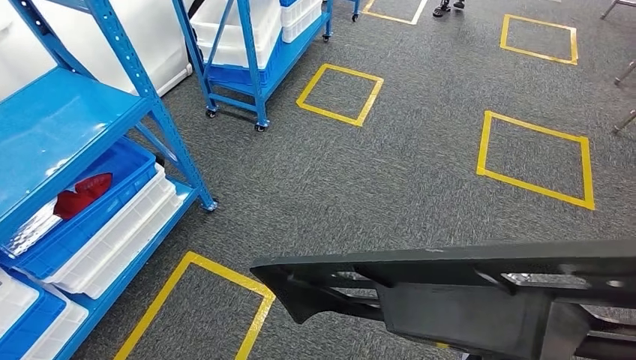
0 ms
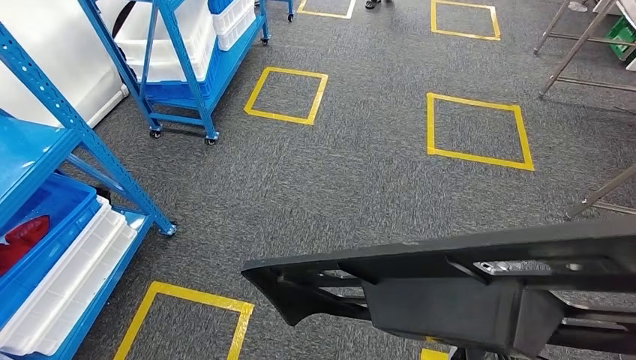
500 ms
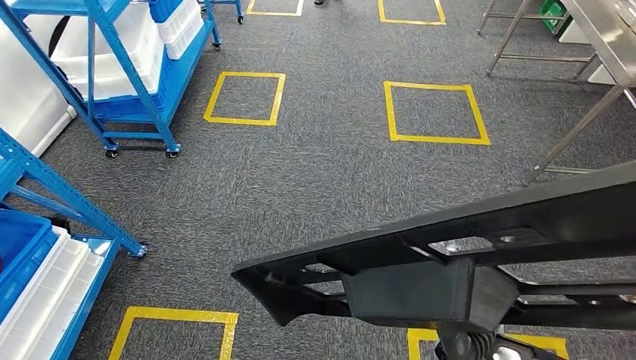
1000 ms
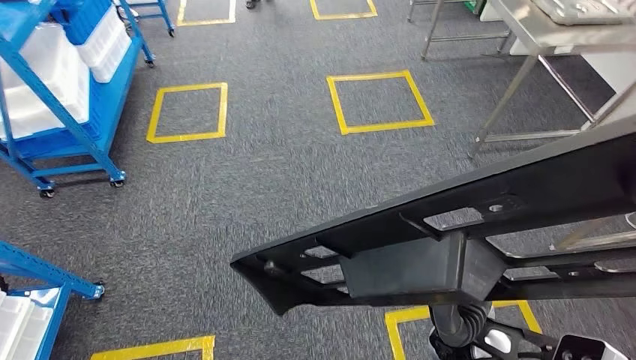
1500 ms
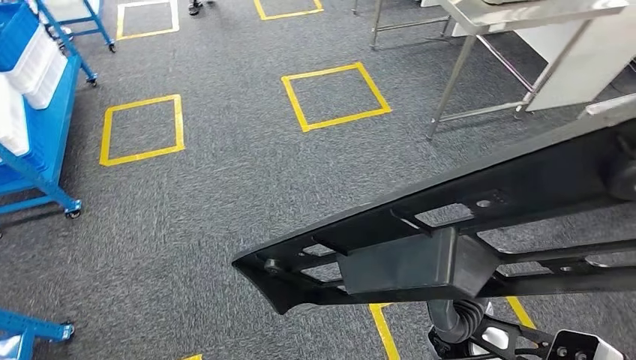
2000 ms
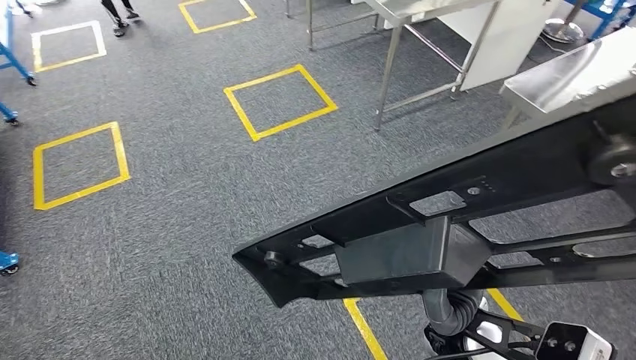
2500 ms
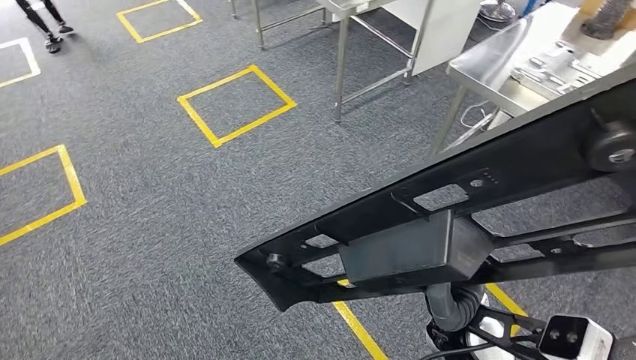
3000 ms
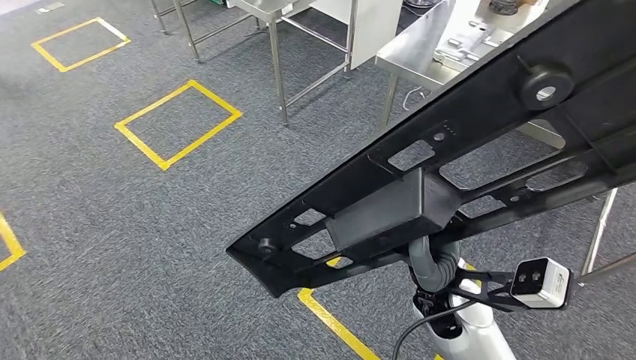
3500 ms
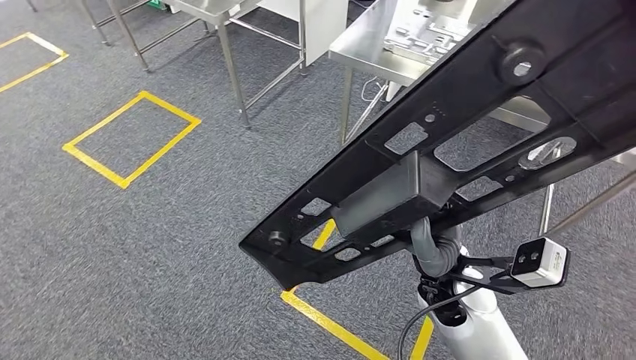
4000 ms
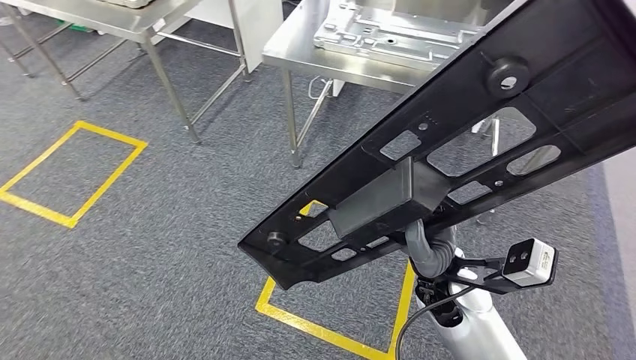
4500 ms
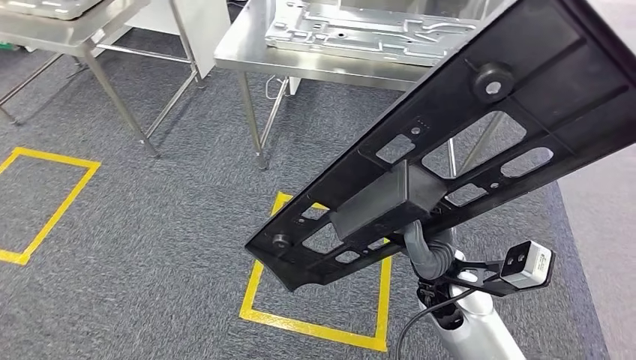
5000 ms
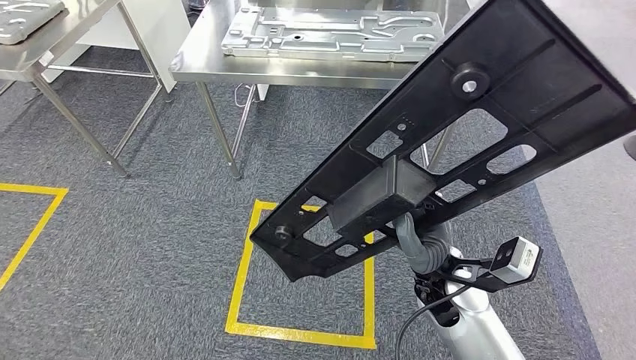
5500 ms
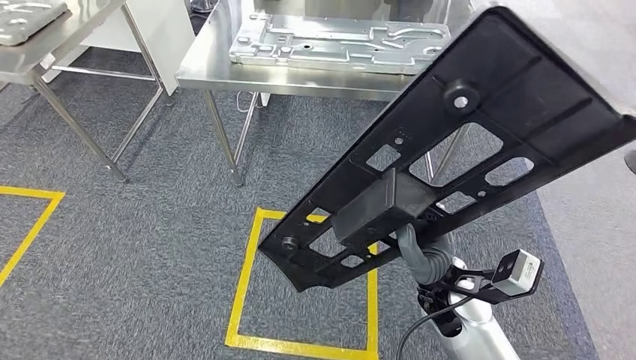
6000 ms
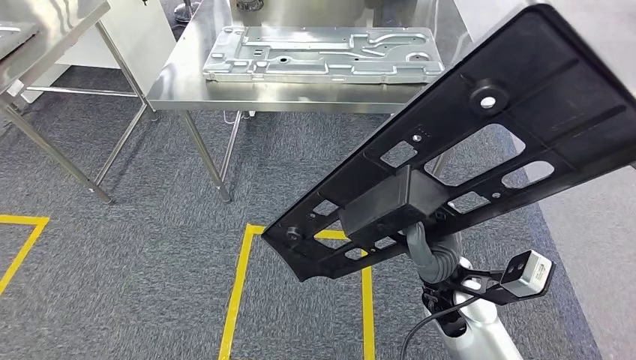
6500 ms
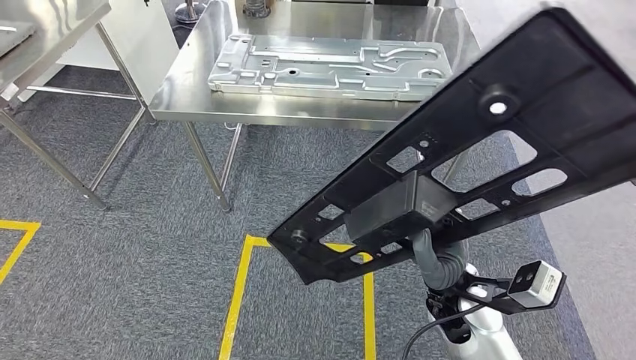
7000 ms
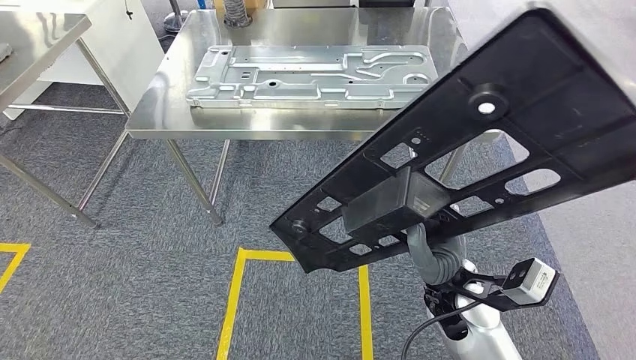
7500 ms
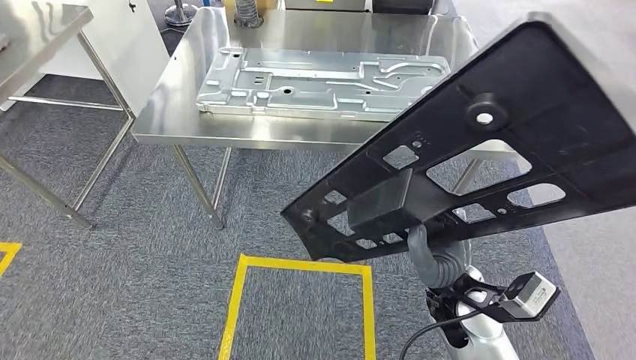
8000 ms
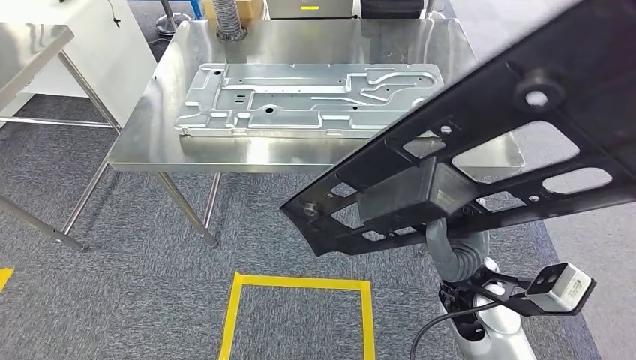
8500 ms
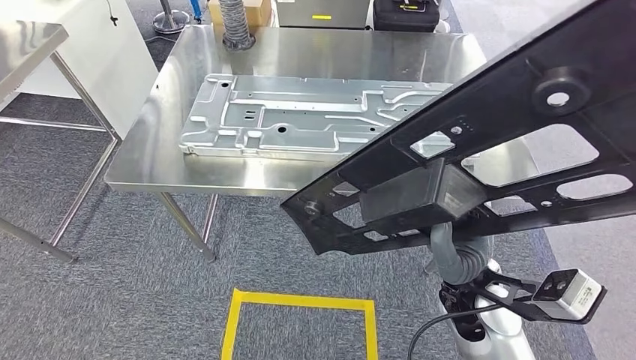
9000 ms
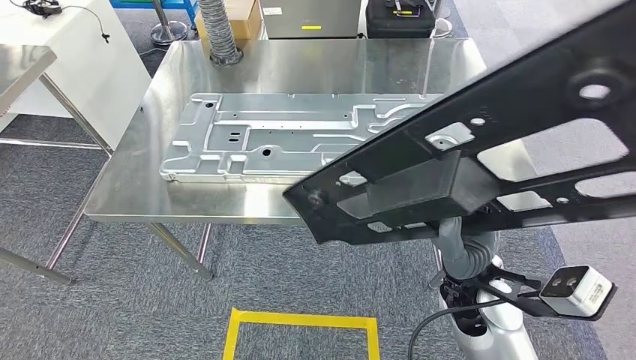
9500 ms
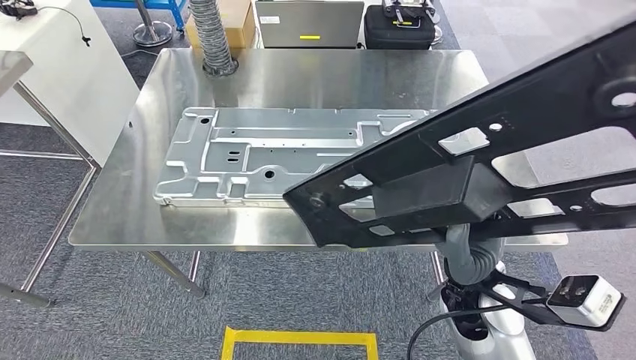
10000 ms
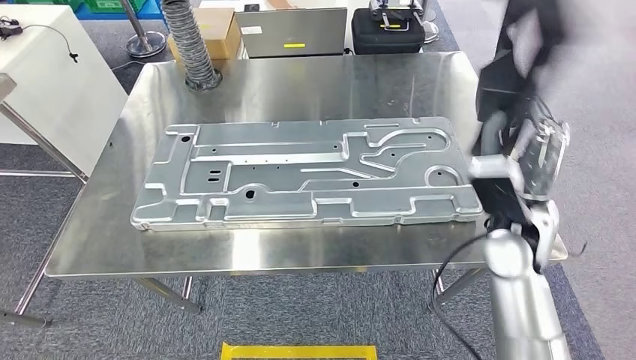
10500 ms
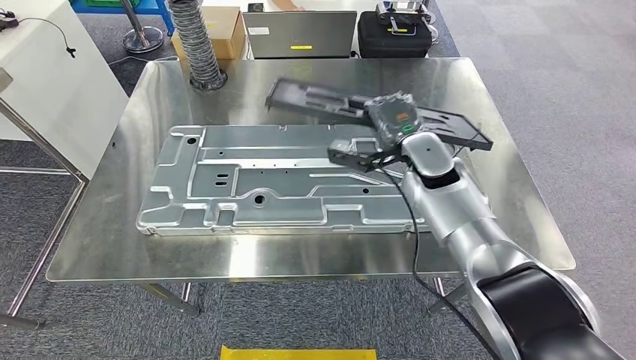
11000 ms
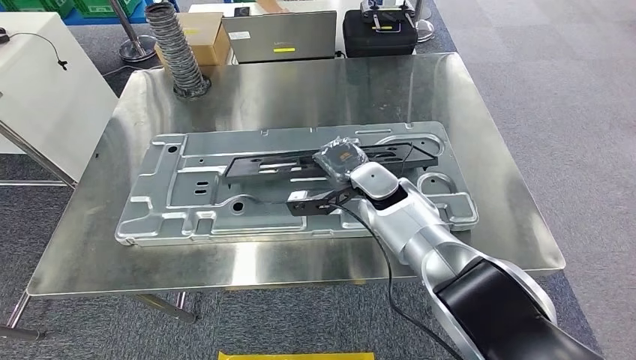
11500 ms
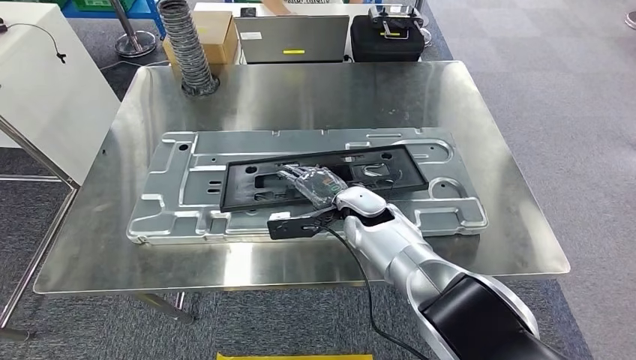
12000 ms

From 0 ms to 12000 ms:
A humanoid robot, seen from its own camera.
Step, from 0 ms to 10000 ms: Move the large material to the workbench.

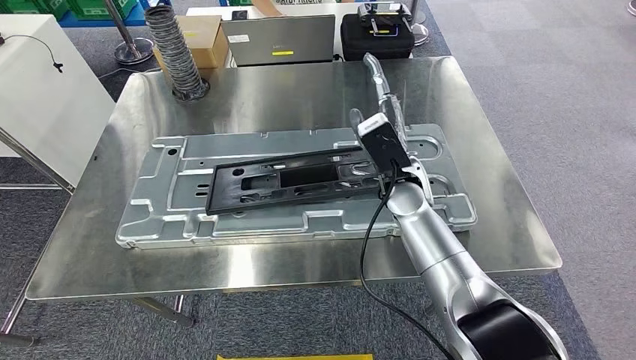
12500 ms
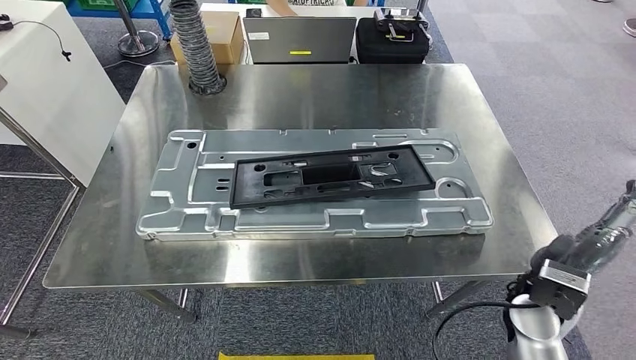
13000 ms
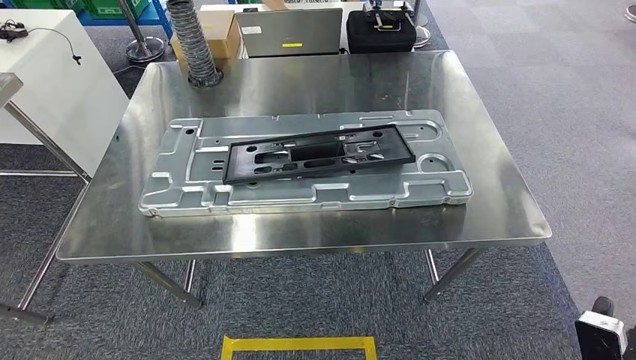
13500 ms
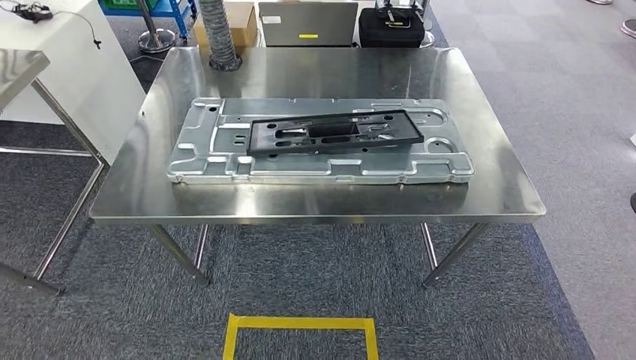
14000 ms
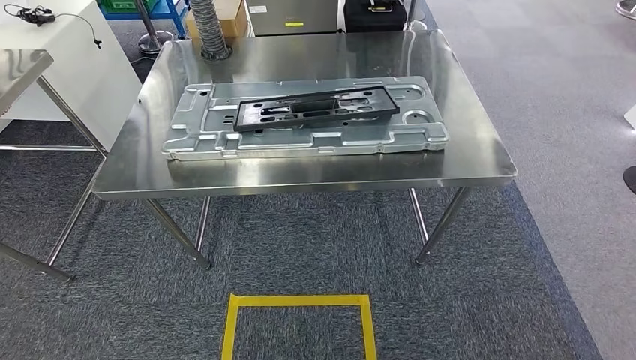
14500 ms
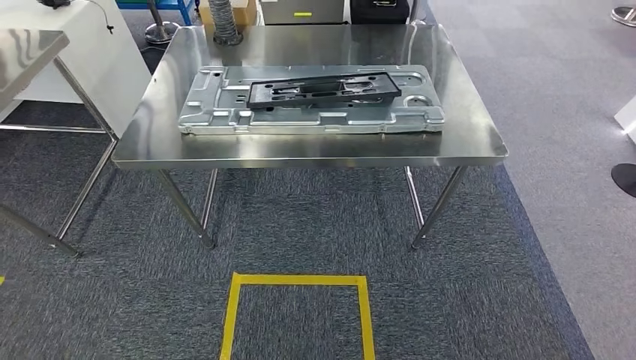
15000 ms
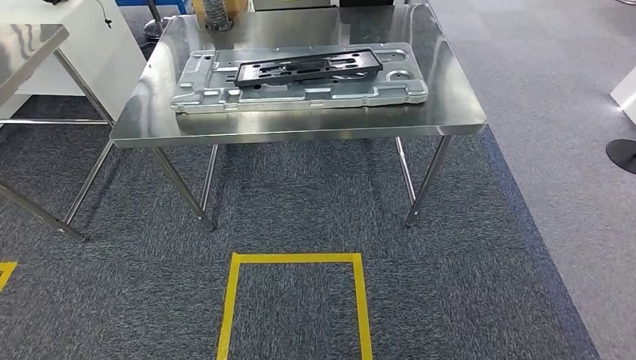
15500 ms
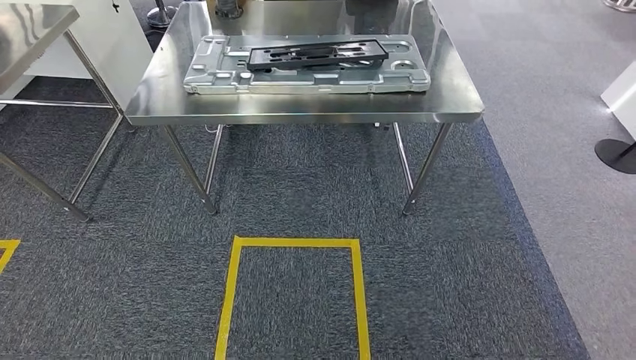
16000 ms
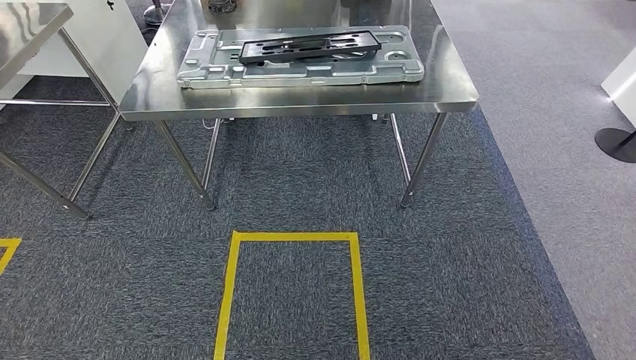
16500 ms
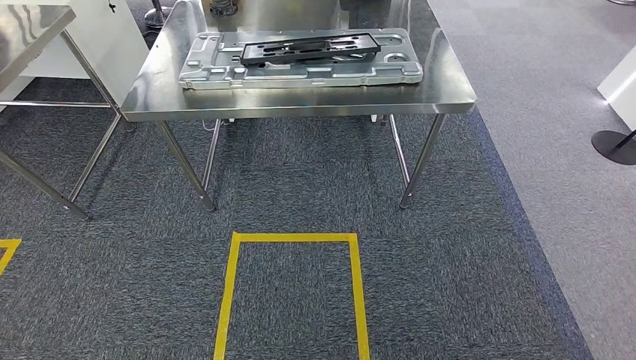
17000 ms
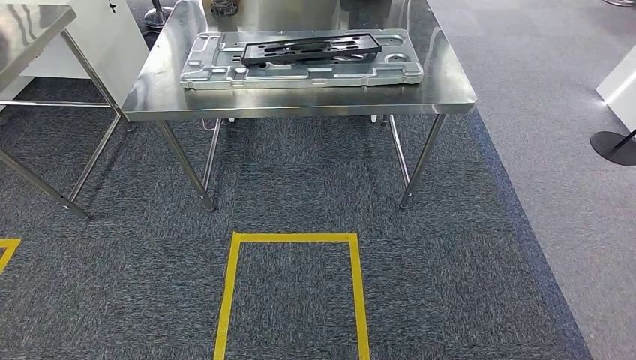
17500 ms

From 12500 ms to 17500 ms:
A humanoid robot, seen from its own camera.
Step, from 12500 ms to 16000 ms: Insert the large material into the corresponding slot on the workbench.
